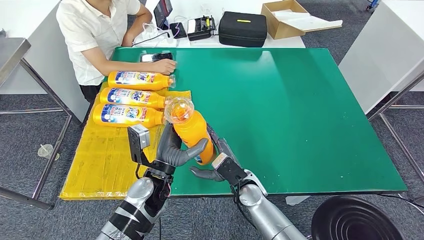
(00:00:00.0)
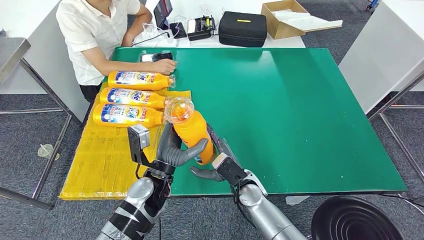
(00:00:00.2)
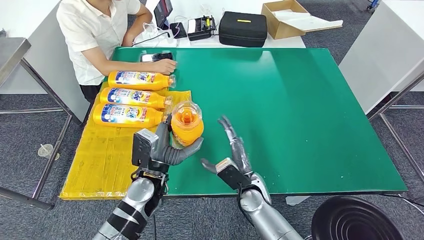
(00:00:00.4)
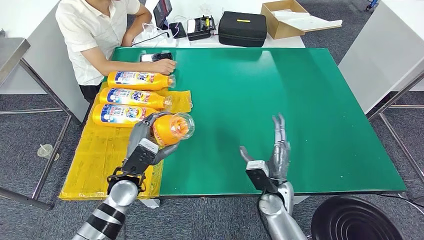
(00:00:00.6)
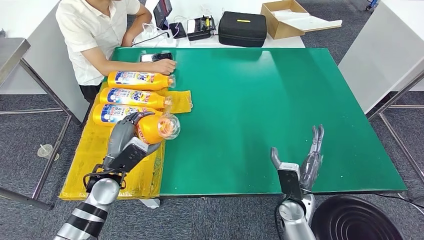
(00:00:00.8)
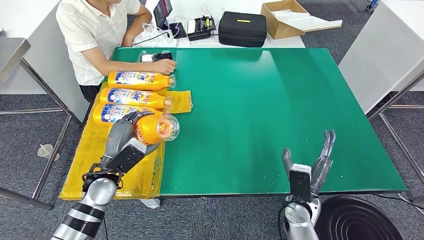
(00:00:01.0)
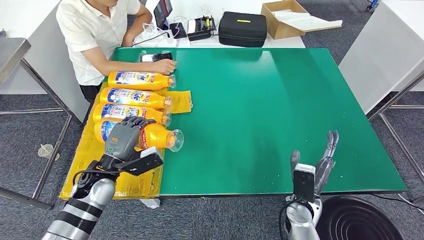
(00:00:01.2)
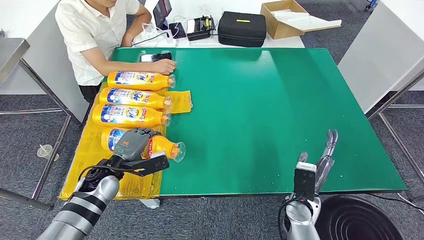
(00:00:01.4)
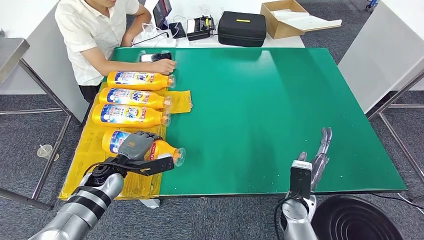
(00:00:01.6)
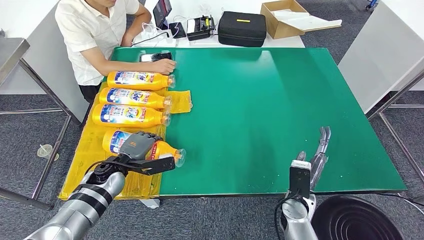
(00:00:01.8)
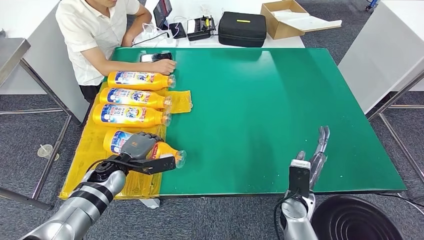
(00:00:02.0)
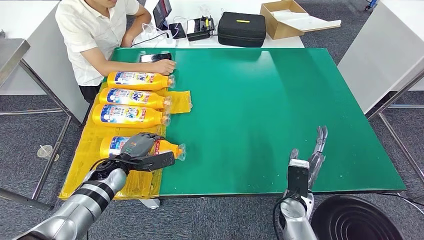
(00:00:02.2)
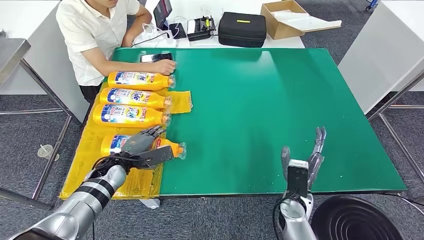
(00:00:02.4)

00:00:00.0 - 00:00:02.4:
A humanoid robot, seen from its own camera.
Step, 00:00:00.0 - 00:00:02.2: Flip the fast-moving consumer goods bottle to the front side.
00:00:00.0 - 00:00:01.2: The right hand moves to the right, roughly 15 cm; the left hand shifts roughly 15 cm to the left.
00:00:01.2 - 00:00:02.4: The left hand heads downward, covering about 5 cm.
